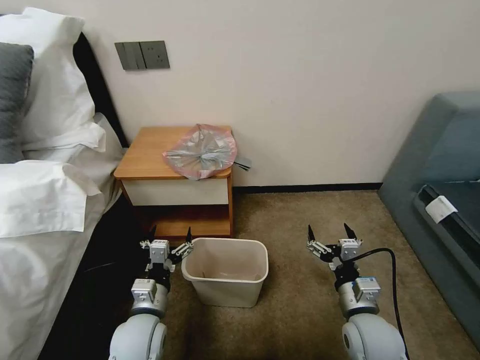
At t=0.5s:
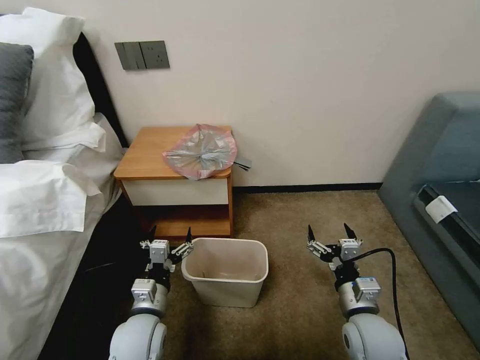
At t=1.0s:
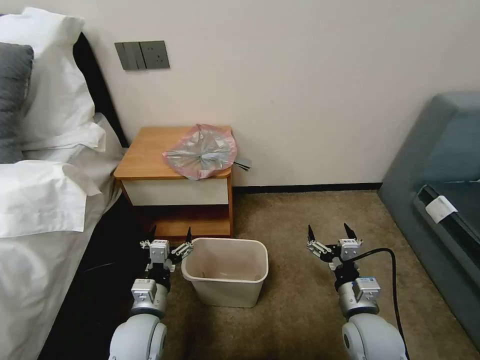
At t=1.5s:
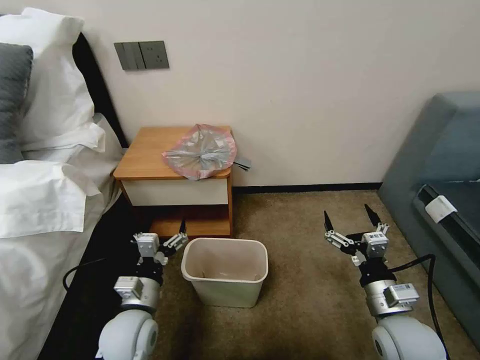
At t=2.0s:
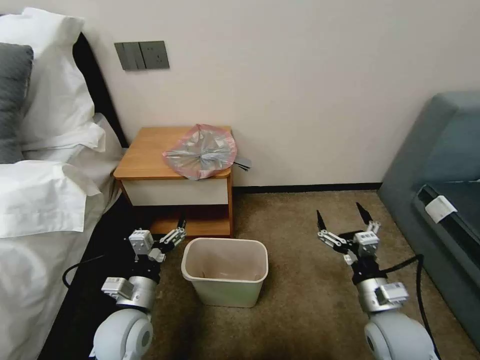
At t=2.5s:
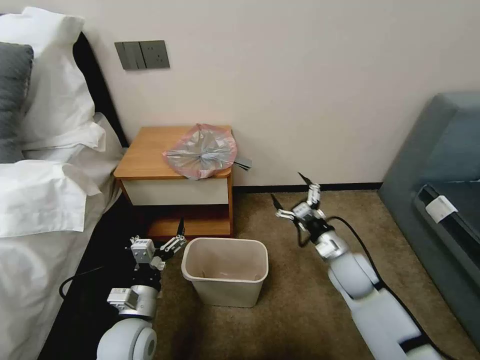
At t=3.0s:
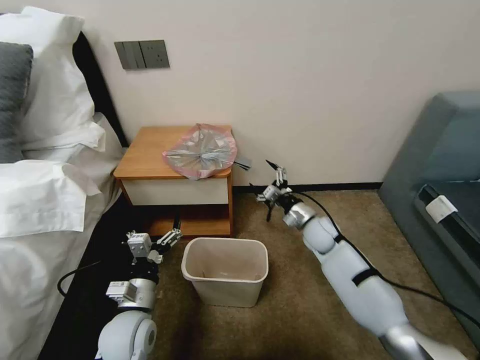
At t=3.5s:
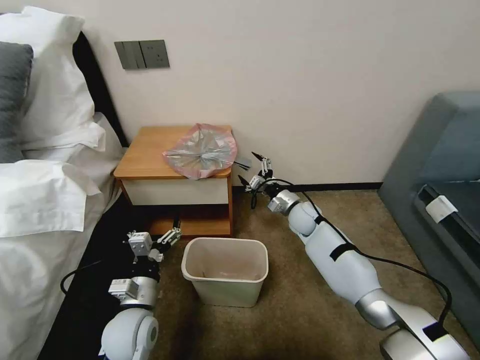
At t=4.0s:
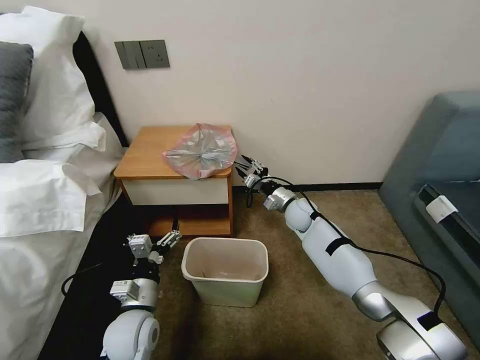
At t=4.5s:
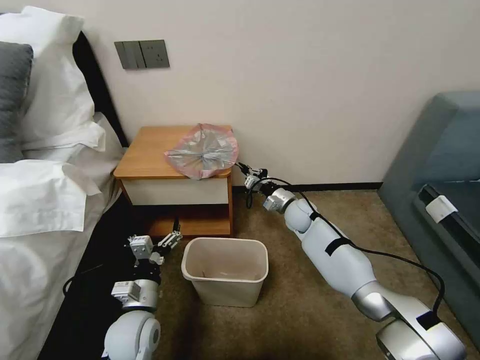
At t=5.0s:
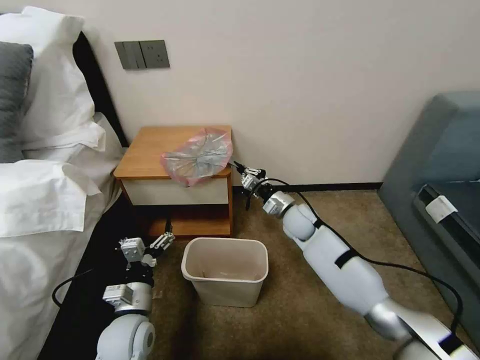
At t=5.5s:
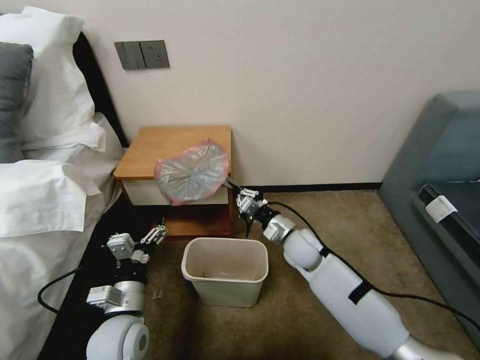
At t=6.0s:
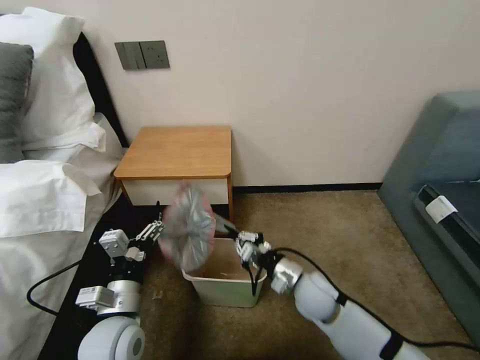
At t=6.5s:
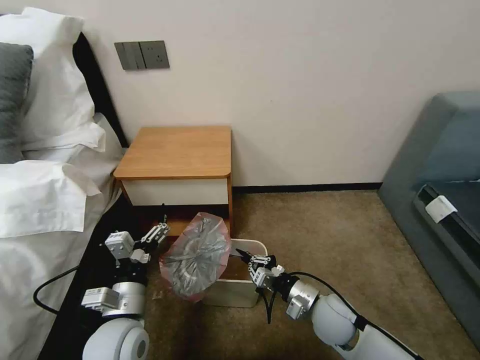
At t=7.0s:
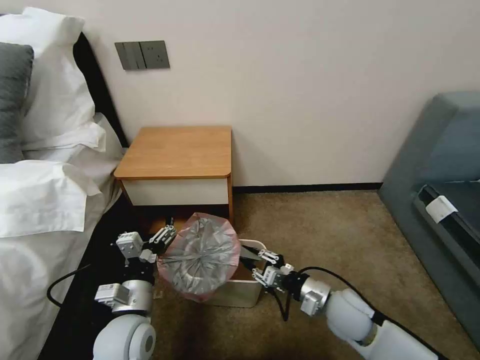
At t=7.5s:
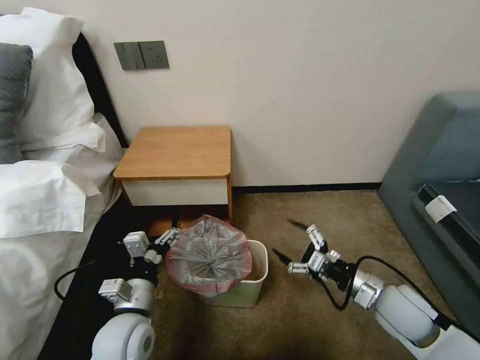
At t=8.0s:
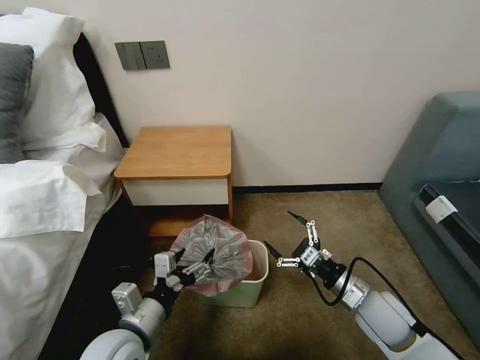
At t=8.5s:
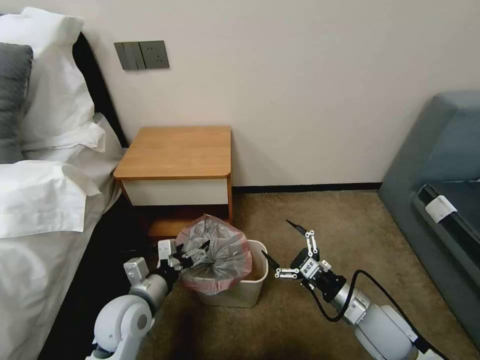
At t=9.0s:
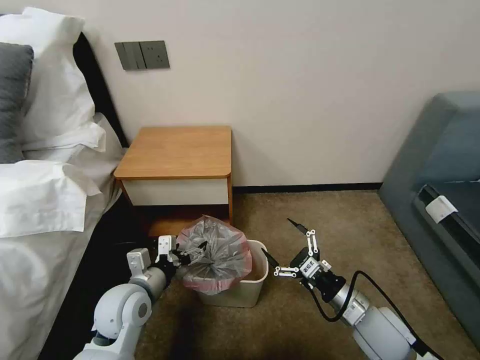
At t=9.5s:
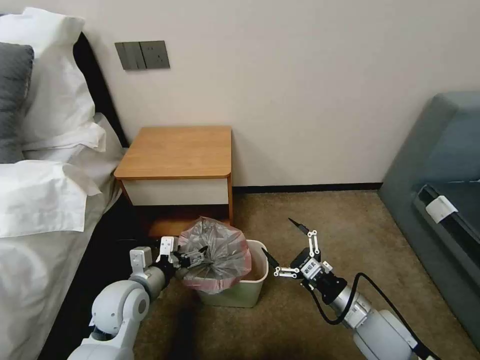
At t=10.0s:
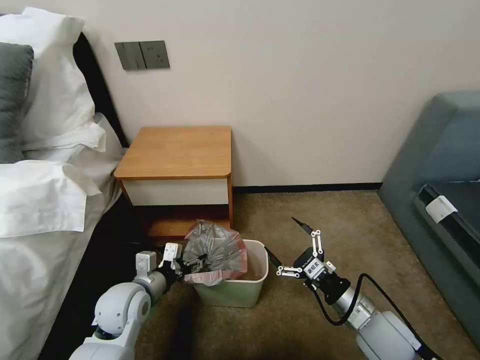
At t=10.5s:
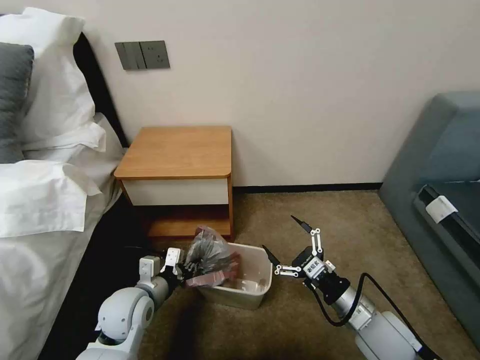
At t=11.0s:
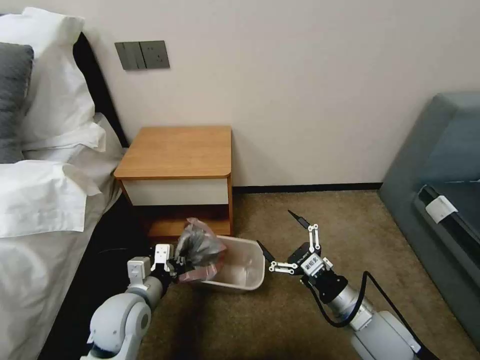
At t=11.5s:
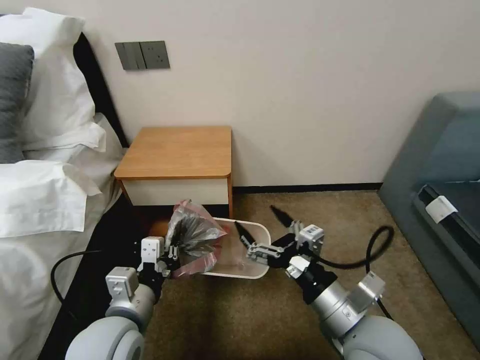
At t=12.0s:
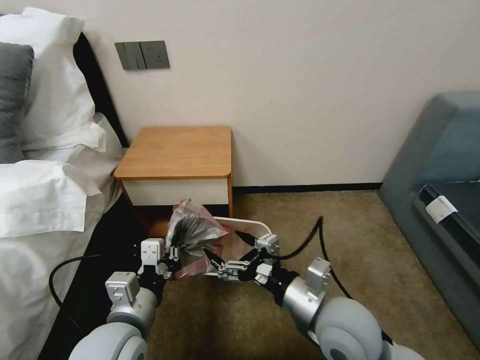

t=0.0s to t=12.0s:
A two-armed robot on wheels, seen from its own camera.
Task of the whole recording: Pick up the garbage bag from the table and place it over the trash can.
t=2.0s to t=4.0s: The right gripper shifts roughly 30 cm forward, and closes.
t=4.0s to t=6.0s: The right gripper goes some 25 cm backward, and closes up. The left gripper goes approximately 5 cm upward.
t=6.0s to t=8.0s: The right gripper is displaced to the right by roughly 10 cm, and opens.
t=8.0s to t=10.0s: The left gripper moves forward, about 10 cm.
t=10.0s to t=12.0s: The right gripper moves to the left and upward, approximately 15 cm. The left gripper is displaced backward and upward by about 15 cm, and closes up.

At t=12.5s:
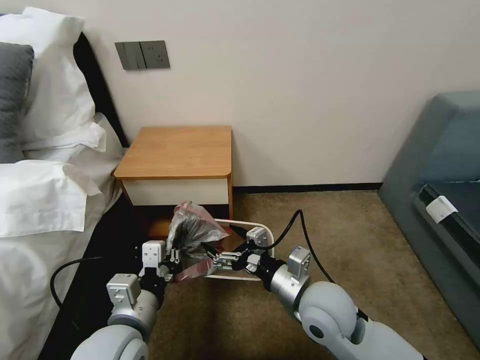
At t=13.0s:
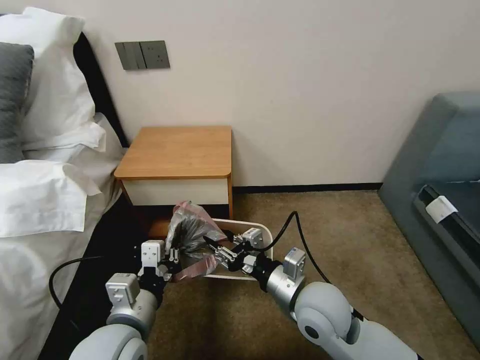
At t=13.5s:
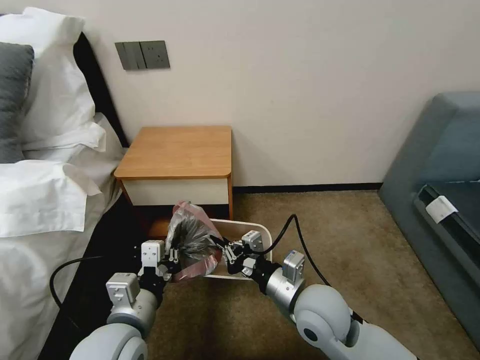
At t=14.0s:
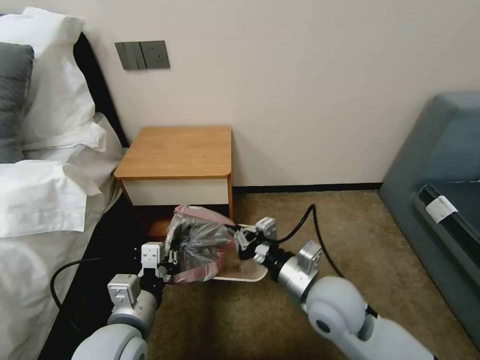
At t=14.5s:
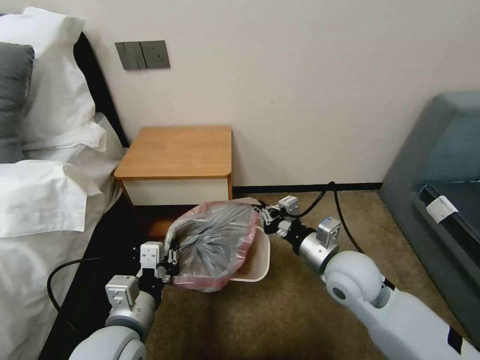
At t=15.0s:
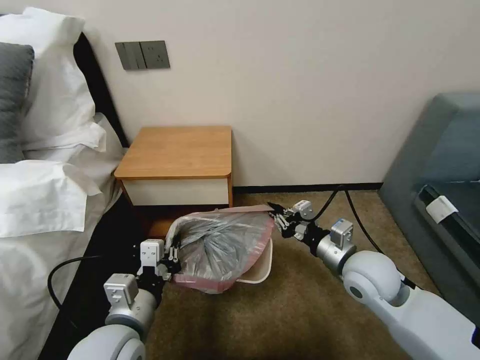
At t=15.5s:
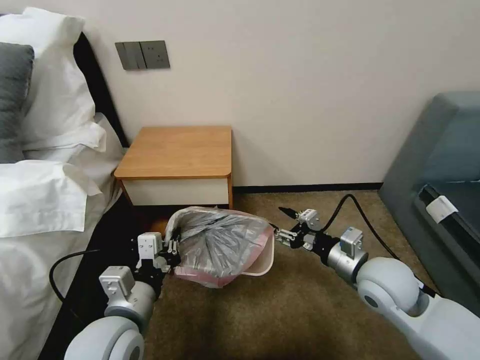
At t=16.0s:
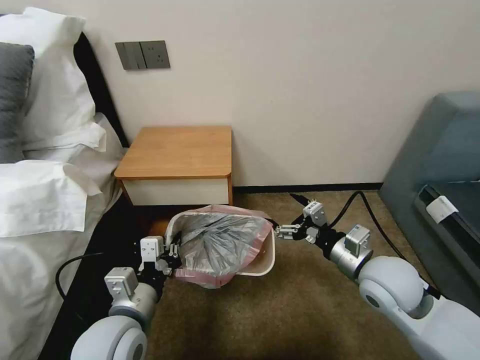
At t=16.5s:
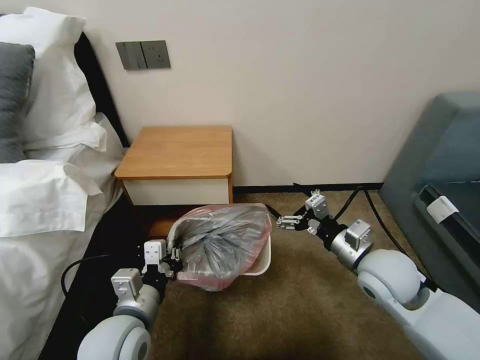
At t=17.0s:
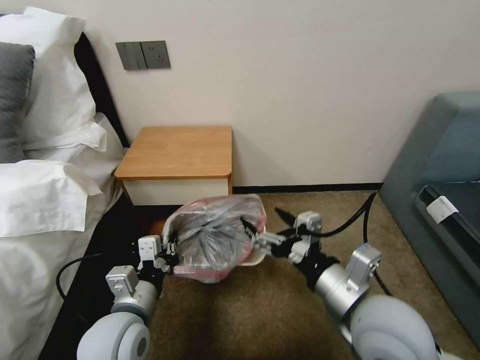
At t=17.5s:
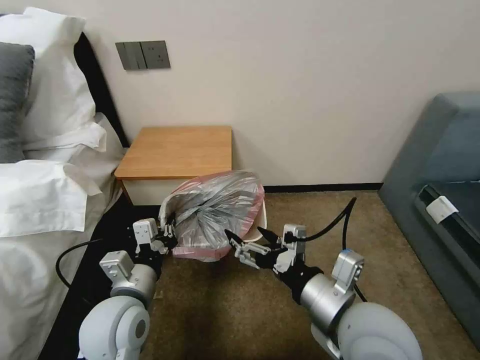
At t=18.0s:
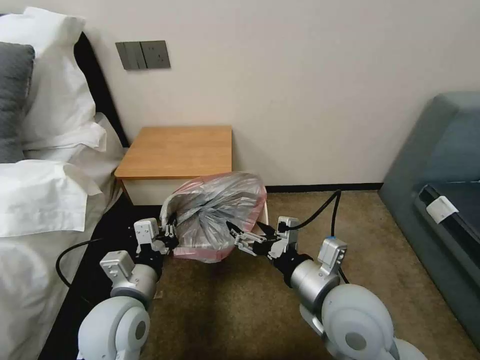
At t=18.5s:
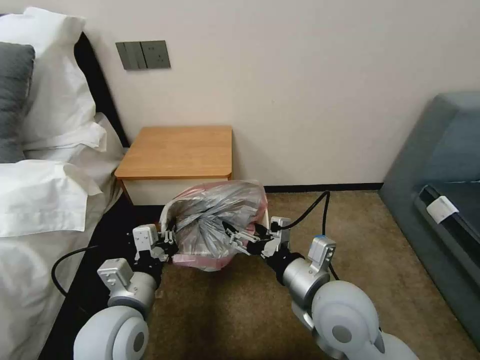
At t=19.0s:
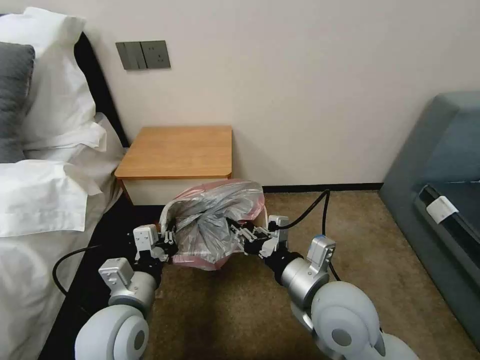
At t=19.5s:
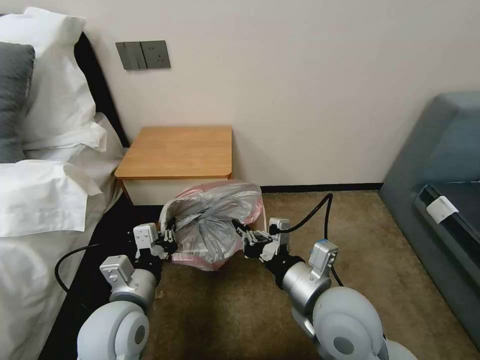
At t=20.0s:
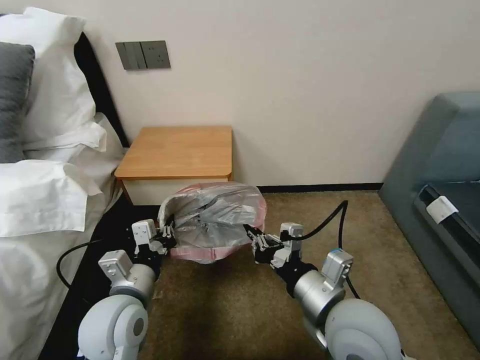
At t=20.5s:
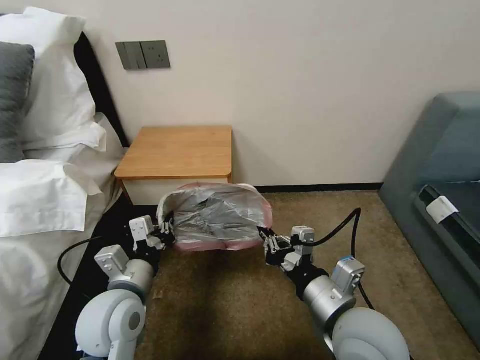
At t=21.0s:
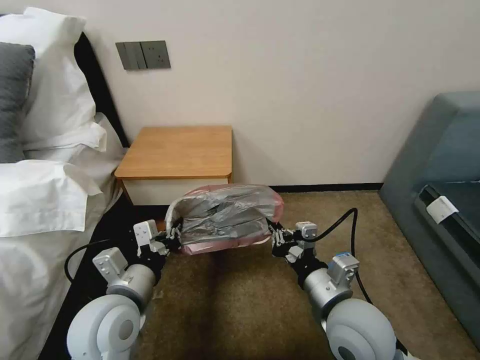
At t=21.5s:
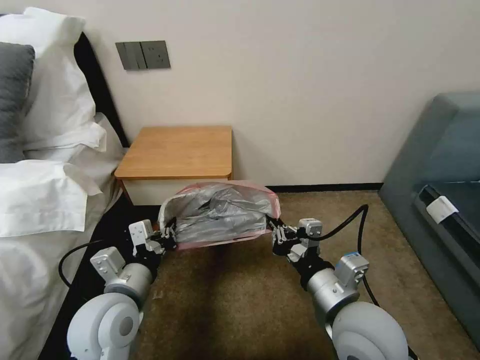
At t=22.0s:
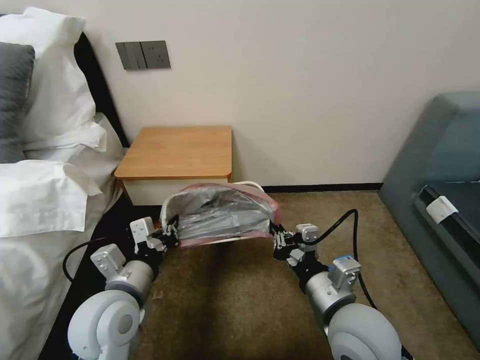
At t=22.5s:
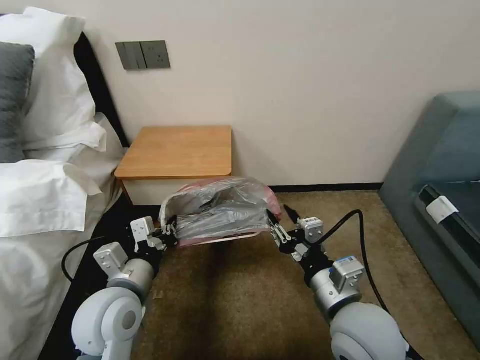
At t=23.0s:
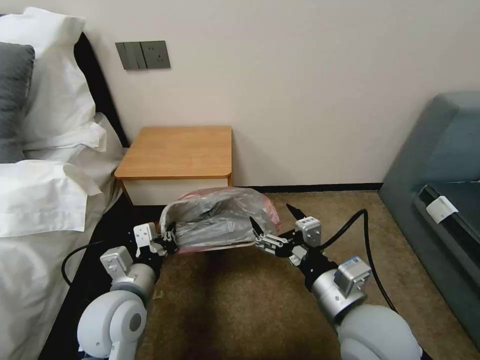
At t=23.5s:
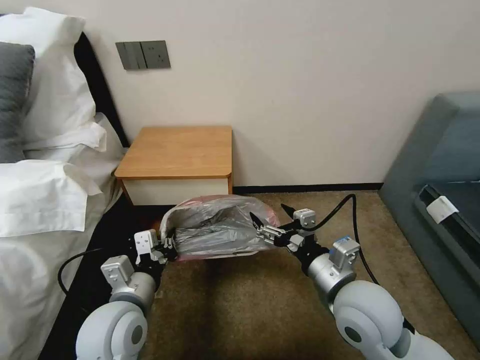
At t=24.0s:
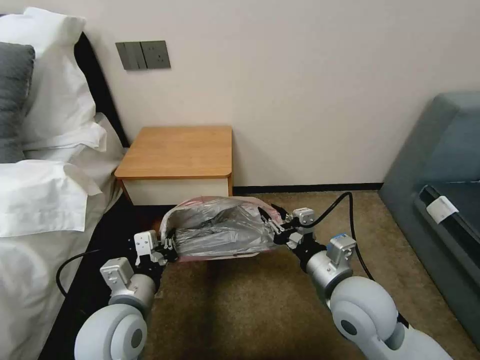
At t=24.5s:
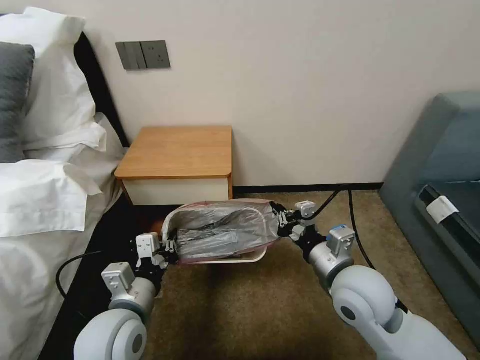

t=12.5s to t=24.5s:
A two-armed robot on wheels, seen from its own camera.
Task of the whole recording: Pick up the garbage bag from the table and place it over the trash can.
t=12.5s to t=14.5s: The right gripper heads to the right and forward, covering about 10 cm, and closes.
t=14.5s to t=16.5s: The right gripper travels to the right by some 5 cm, and opens up.
t=16.5s to t=18.5s: The right gripper is displaced to the left and backward by approximately 15 cm.
t=18.5s to t=20.5s: The right gripper closes up.
t=20.5s to t=22.5s: The right gripper opens its fingers.
t=22.5s to t=24.5s: The right gripper moves forward, approximately 5 cm, and closes up.

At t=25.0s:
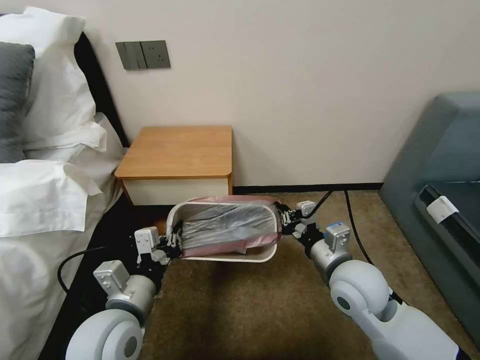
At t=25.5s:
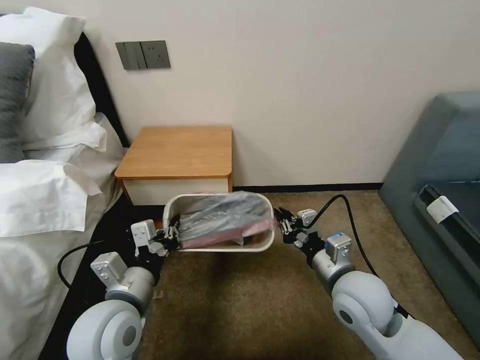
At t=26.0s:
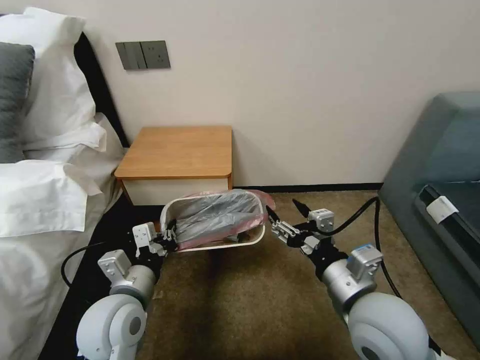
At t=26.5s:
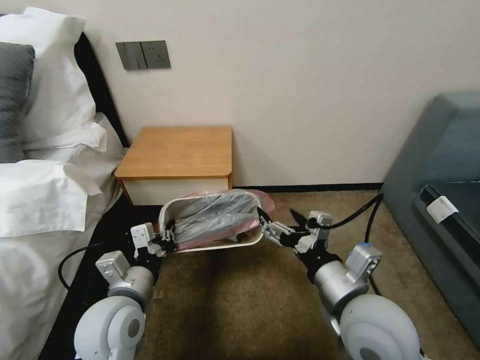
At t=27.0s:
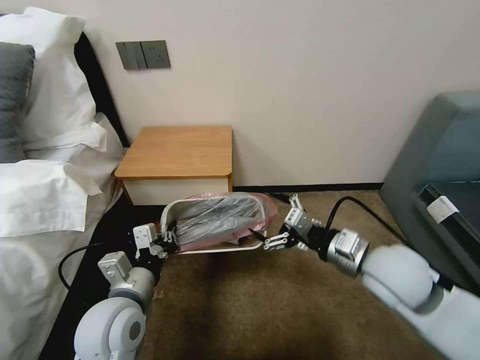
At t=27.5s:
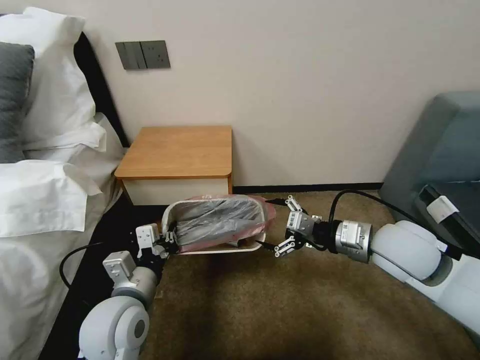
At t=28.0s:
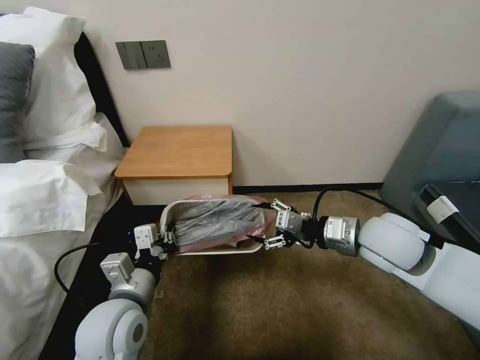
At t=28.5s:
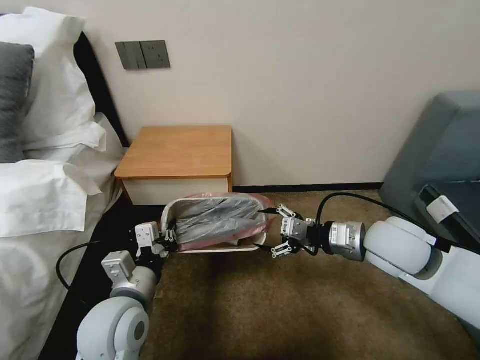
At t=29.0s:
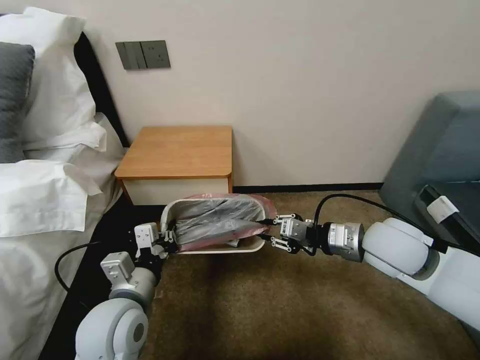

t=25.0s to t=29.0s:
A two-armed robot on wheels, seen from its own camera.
Task of the whole recording: Pick up the garbage bag from the table and place it over the trash can.
t=25.0s to t=27.0s: The right gripper heads upward, covering approximately 5 cm, moves about 10 cm backward and comes back, and opens its fingers.
t=27.0s to t=29.0s: The right gripper ends up some 5 cm from where it was, and closes.
